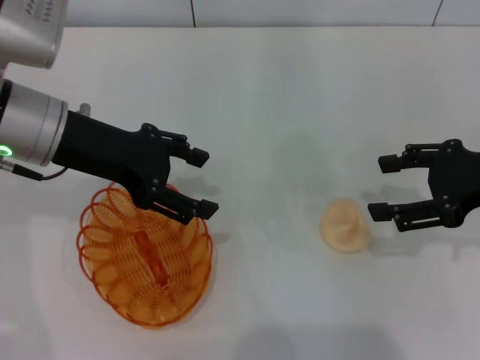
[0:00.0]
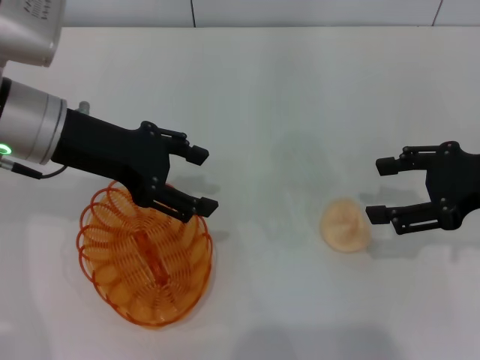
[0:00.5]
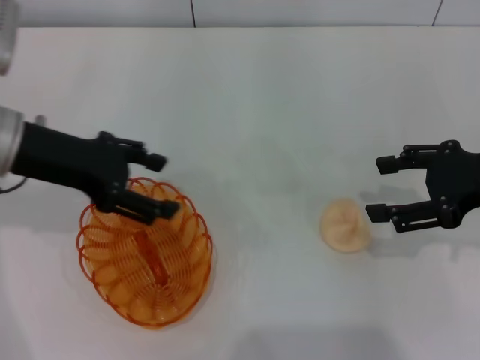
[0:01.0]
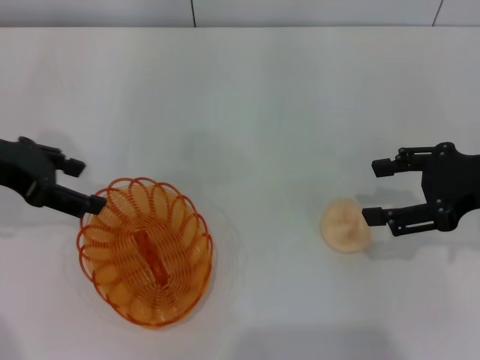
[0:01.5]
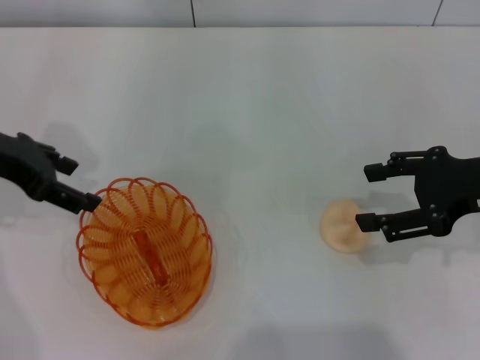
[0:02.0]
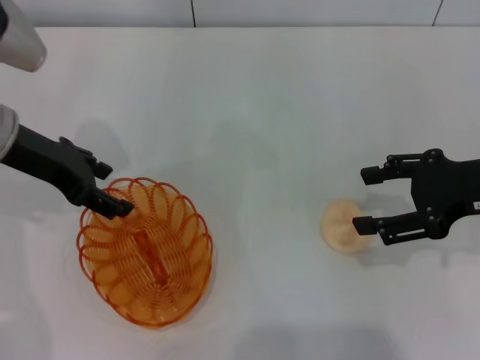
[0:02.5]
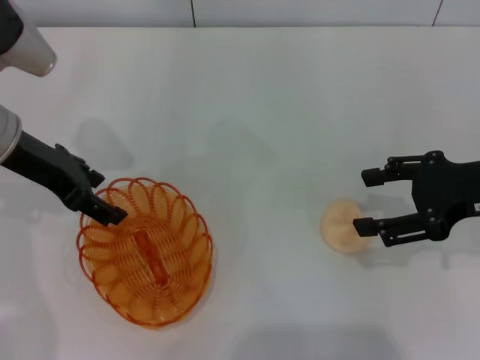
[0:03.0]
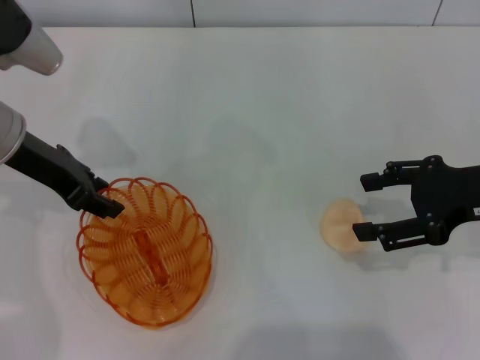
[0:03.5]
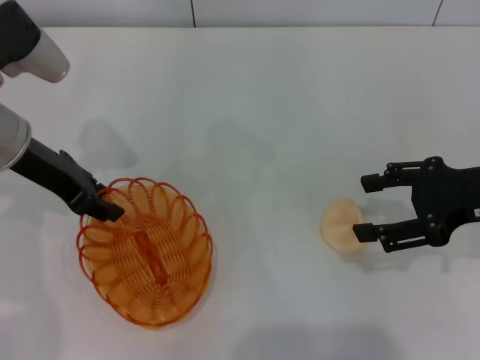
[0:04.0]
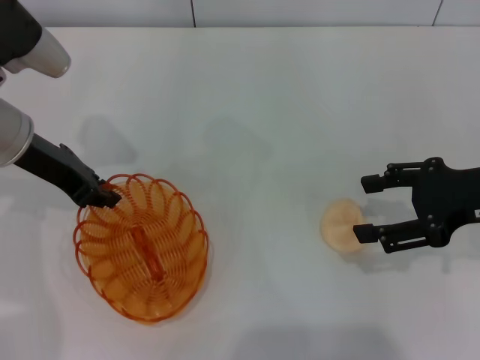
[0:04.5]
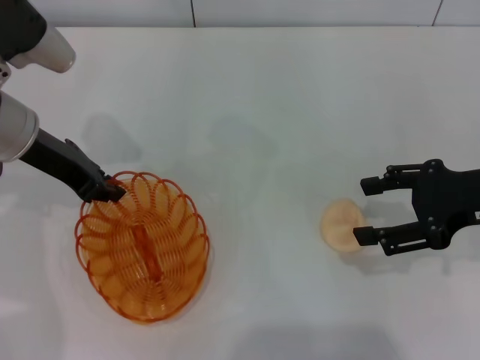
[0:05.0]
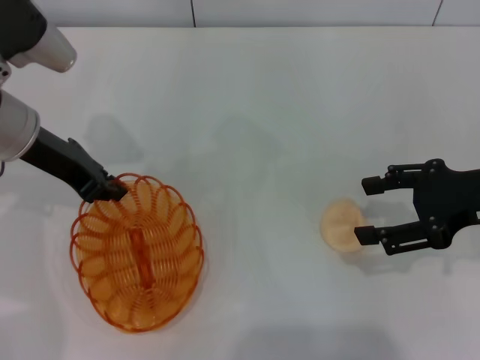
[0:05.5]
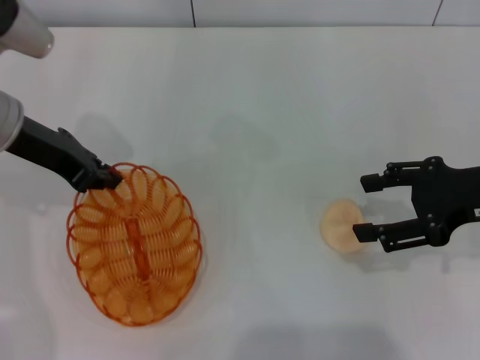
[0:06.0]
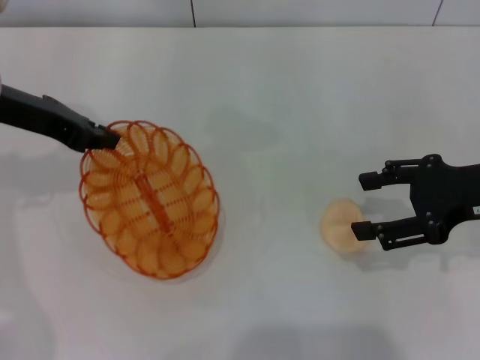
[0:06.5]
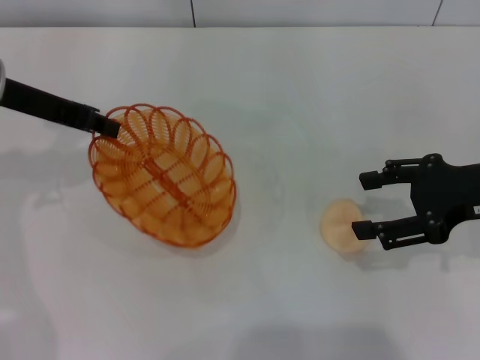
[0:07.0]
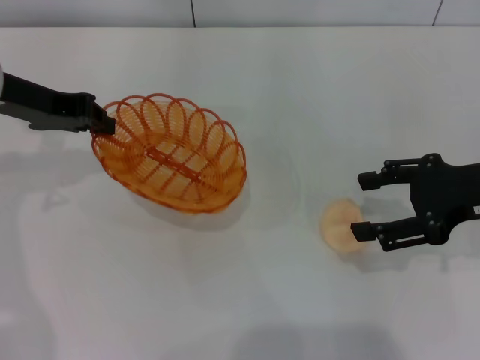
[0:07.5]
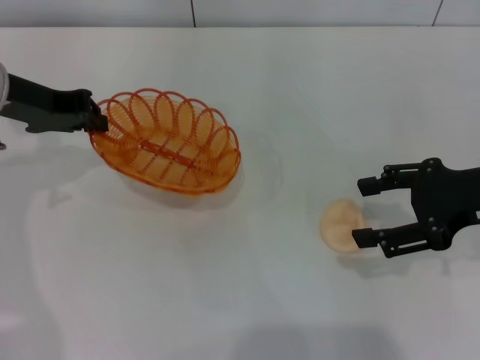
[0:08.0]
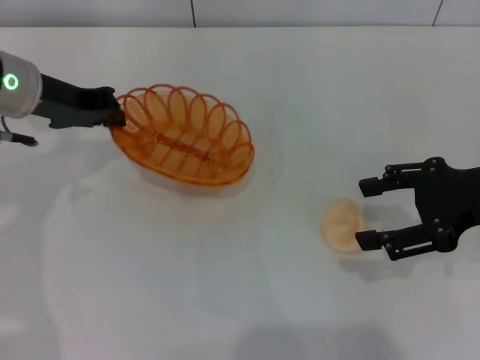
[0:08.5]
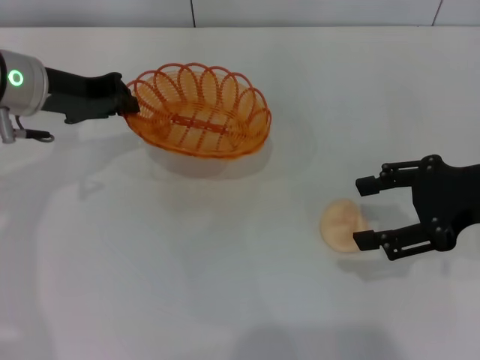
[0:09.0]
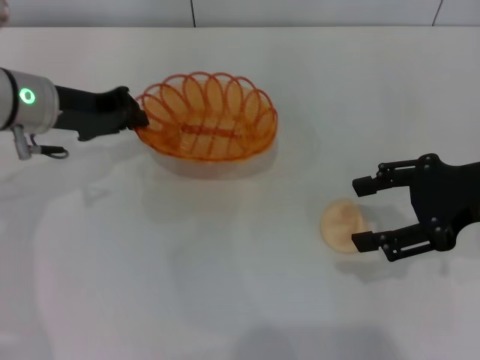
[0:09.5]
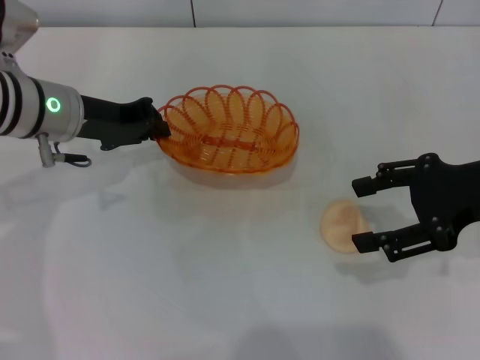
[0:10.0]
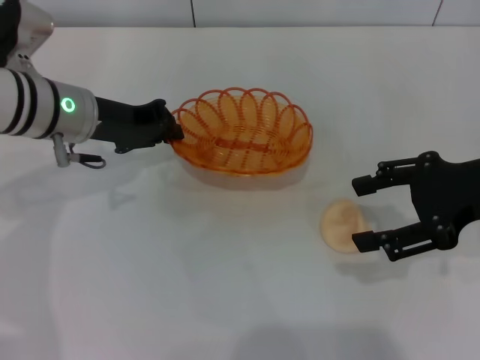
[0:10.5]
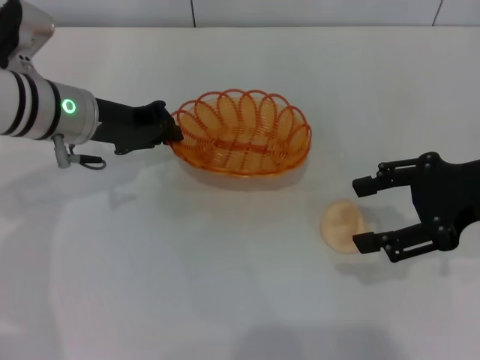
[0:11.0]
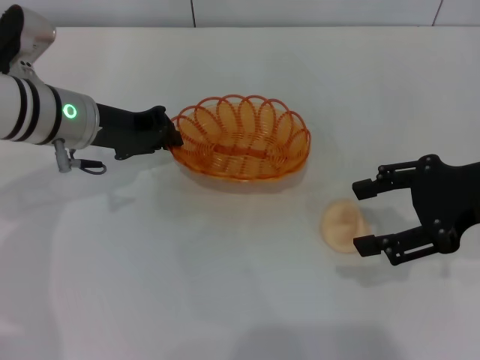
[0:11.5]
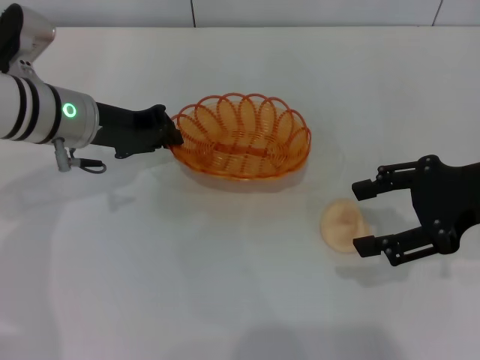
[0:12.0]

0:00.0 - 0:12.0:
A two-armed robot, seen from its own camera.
Step, 0:00.0 - 0:07.0: Pick up the basket with the left gripper.
0:00.0 - 0:02.0: The left gripper heads to the left, covering roughly 10 cm.
0:02.0 - 0:04.0: The left gripper moves about 5 cm, and closes its fingers.
0:04.0 - 0:06.0: The left gripper closes.
0:08.0 - 0:10.0: The left gripper is displaced downward by approximately 5 cm.
0:10.0 - 0:12.0: The grippers move only a little.

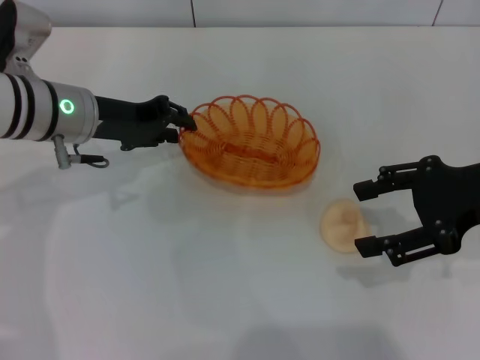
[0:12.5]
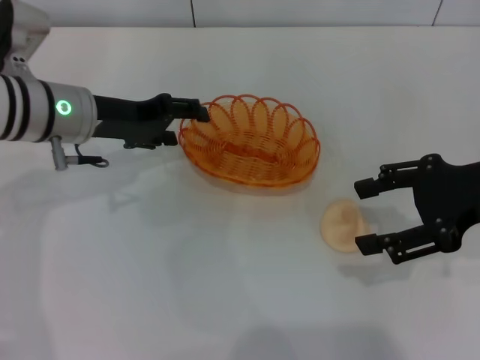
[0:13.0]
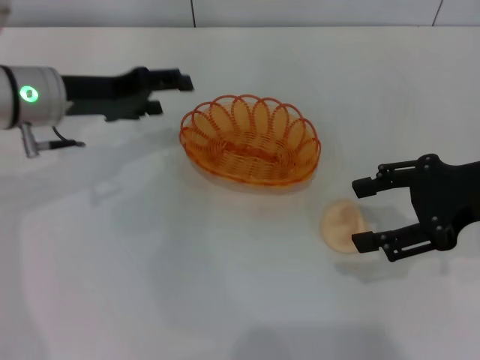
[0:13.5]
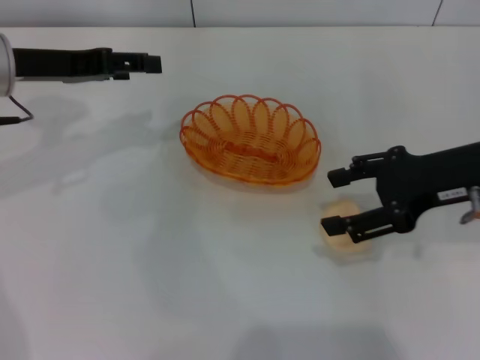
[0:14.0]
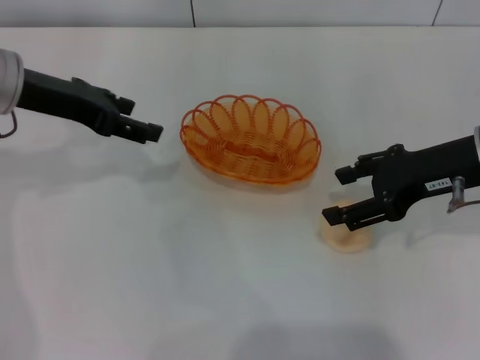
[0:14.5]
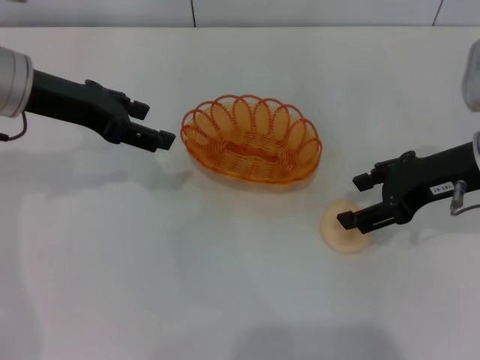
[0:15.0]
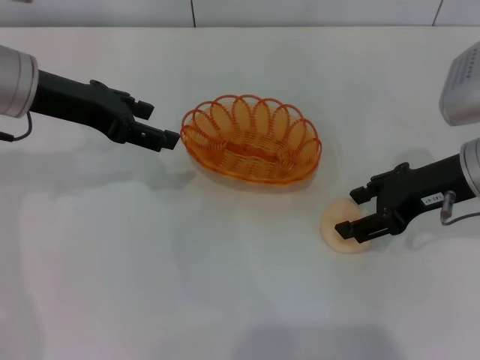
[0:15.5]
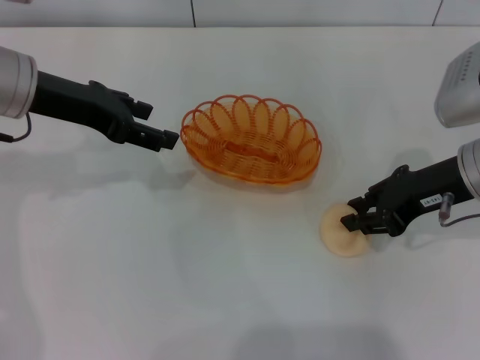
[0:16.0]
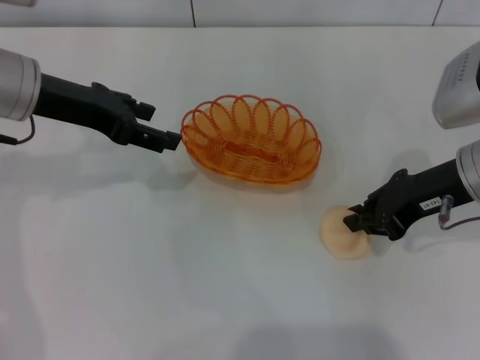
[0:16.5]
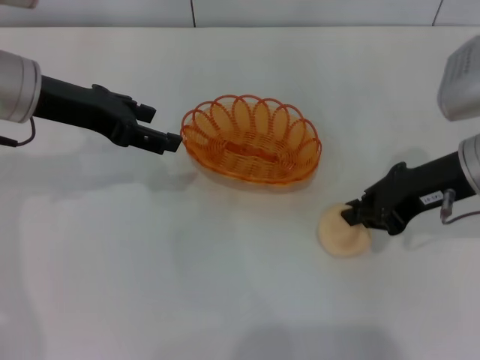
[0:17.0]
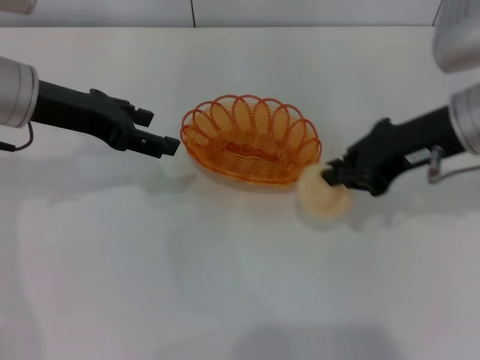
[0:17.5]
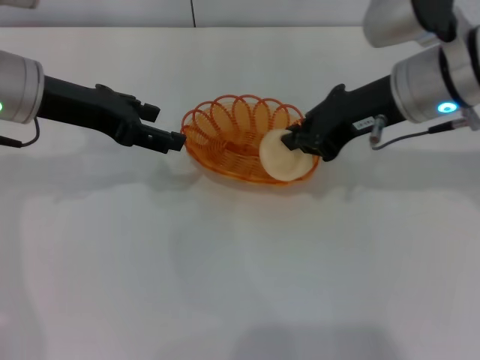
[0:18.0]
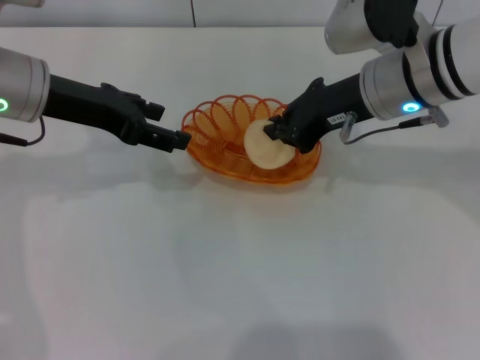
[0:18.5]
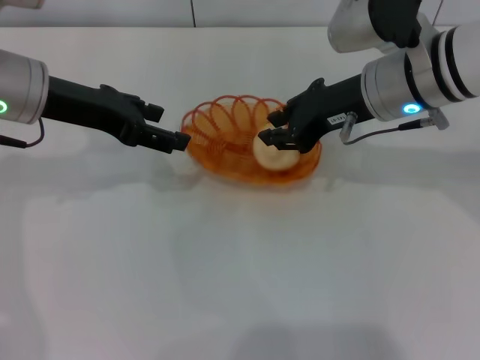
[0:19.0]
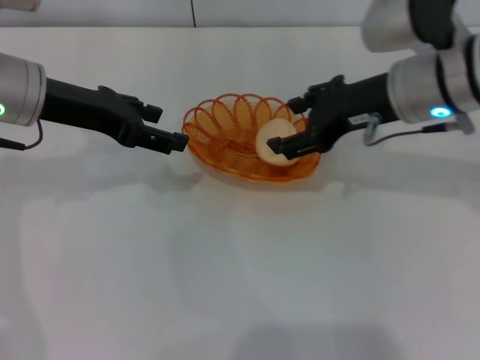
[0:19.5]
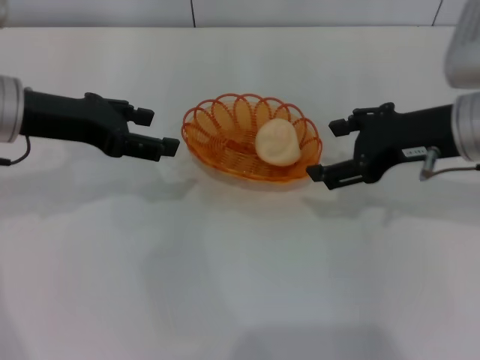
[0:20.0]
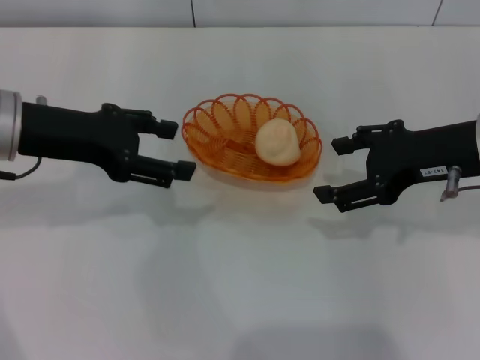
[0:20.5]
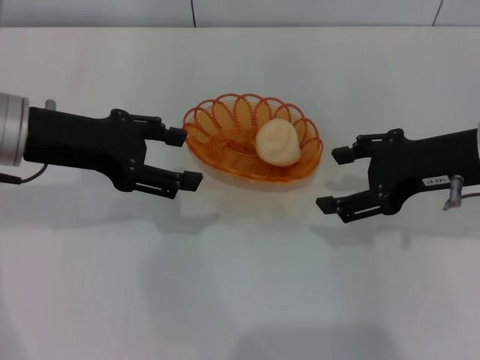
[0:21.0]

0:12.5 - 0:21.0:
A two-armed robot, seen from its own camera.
Step, 0:13.5 - 0:17.5: Pick up the egg yolk pastry with the right gripper.
Step, 0:18.0 - 0:20.0: Place the egg yolk pastry into the basket with the right gripper.
0:12.5 - 0:14.5: The left gripper goes some 5 cm upward, and opens, while the right gripper ends up about 5 cm from where it was.
0:14.5 - 0:16.5: The right gripper closes its fingers.
0:16.5 - 0:19.0: The right gripper is displaced to the left by about 10 cm.
0:19.0 - 0:21.0: The right gripper travels to the right and backward by about 10 cm, and opens.
